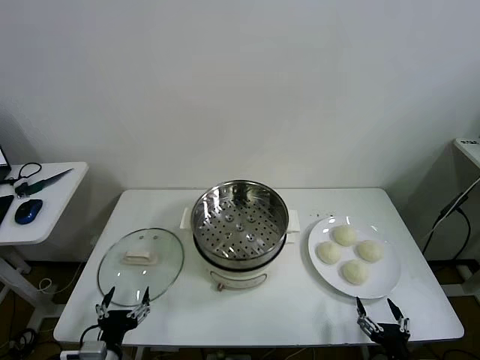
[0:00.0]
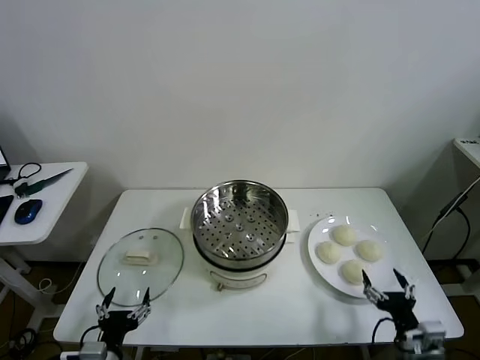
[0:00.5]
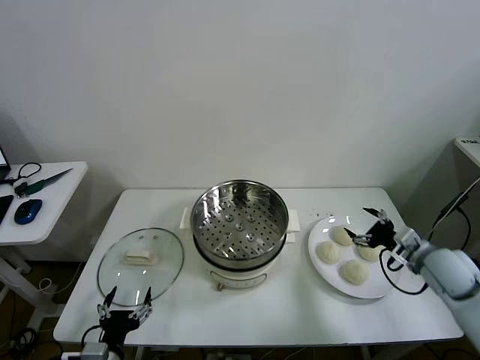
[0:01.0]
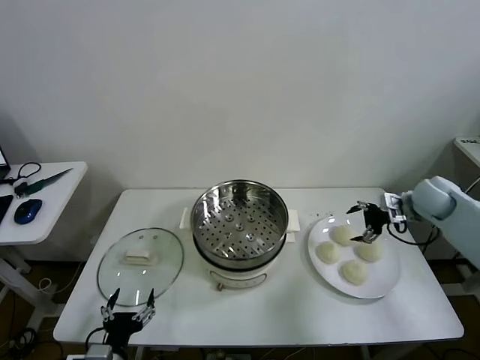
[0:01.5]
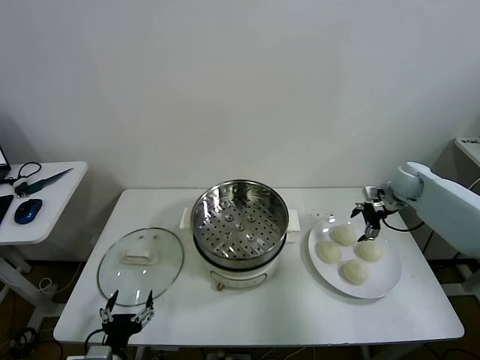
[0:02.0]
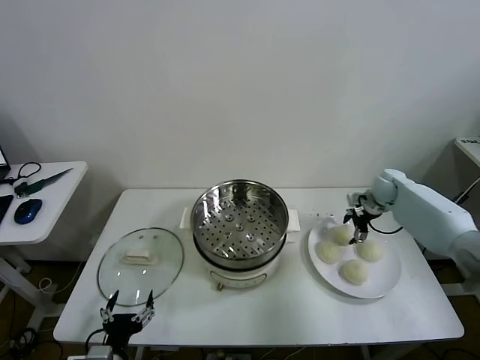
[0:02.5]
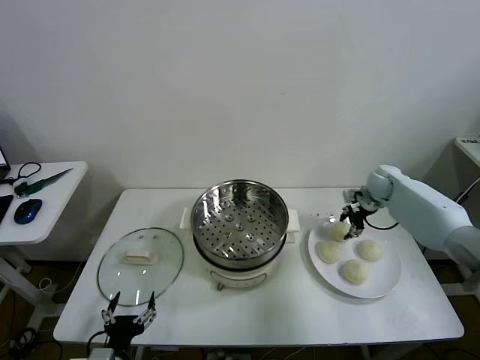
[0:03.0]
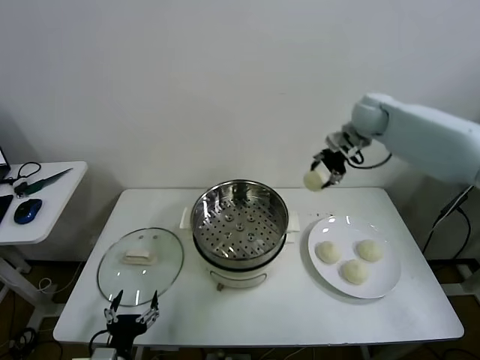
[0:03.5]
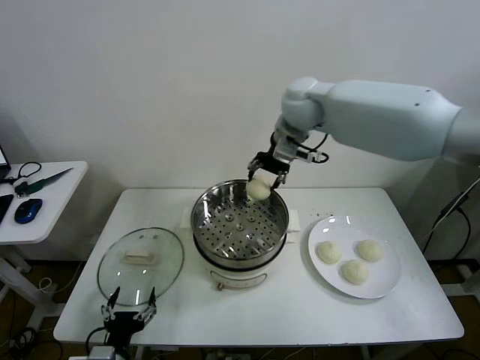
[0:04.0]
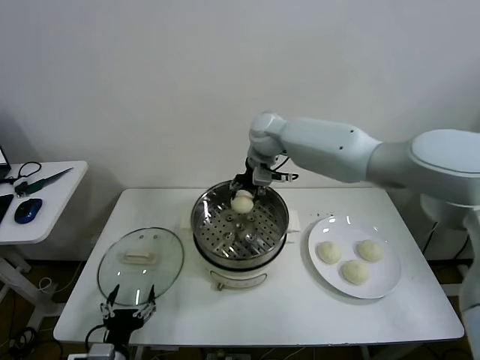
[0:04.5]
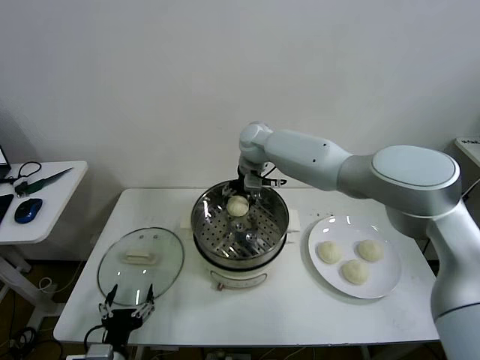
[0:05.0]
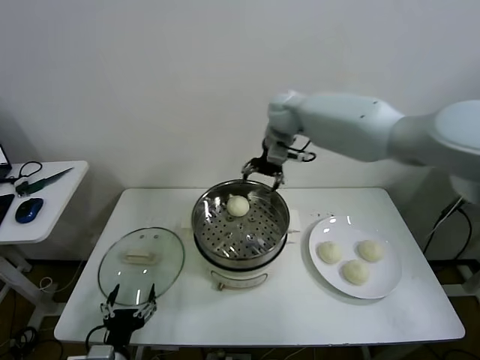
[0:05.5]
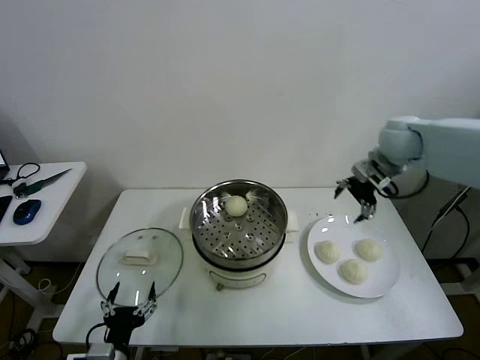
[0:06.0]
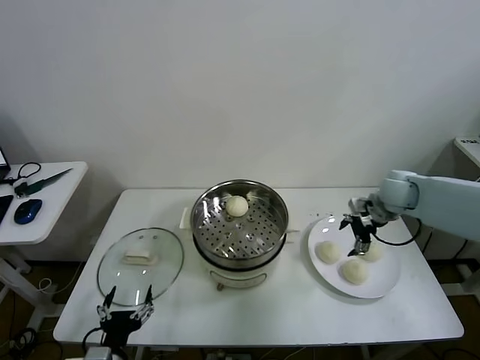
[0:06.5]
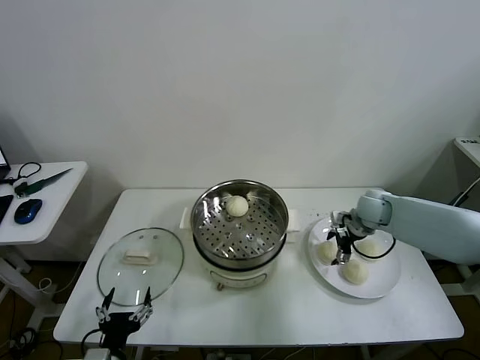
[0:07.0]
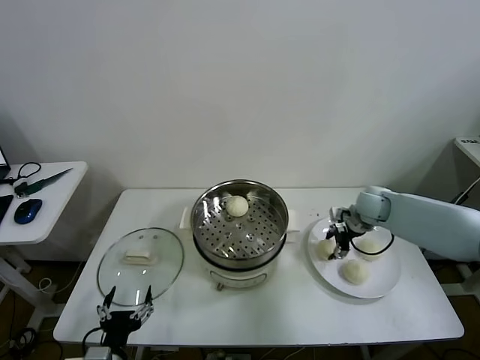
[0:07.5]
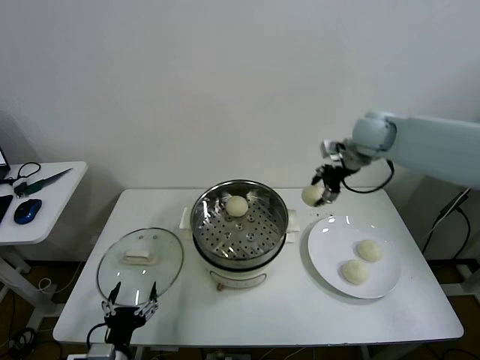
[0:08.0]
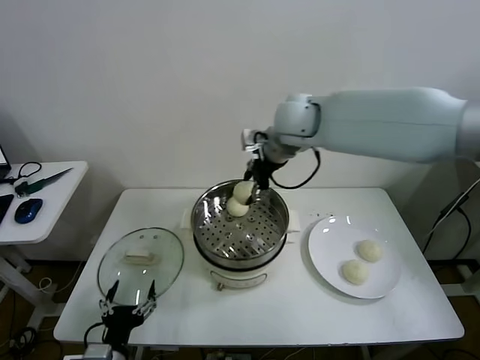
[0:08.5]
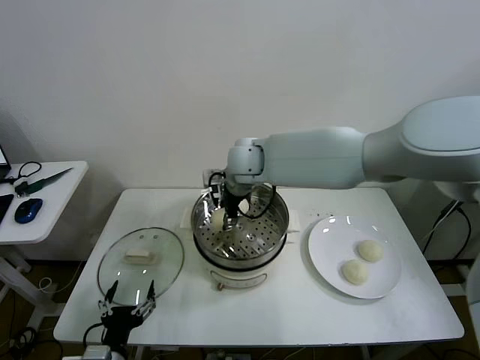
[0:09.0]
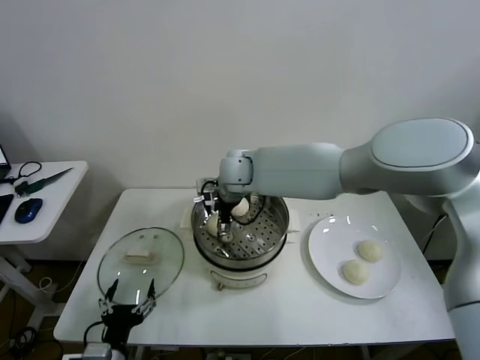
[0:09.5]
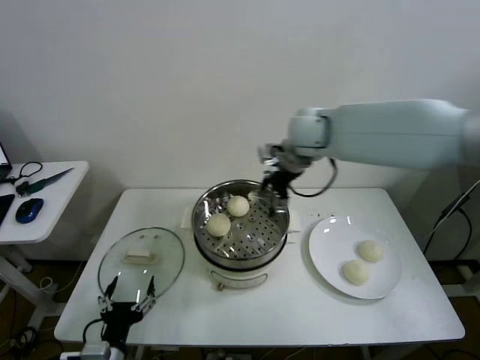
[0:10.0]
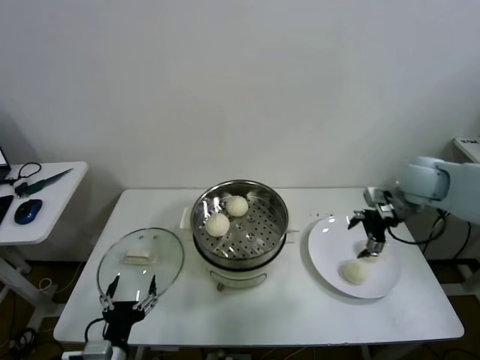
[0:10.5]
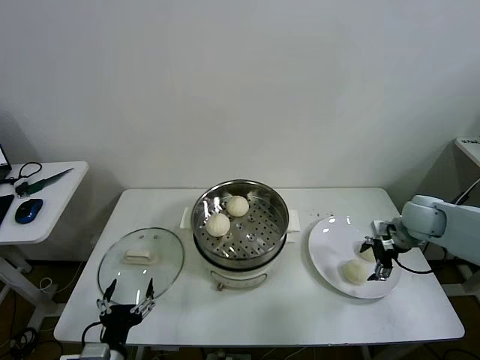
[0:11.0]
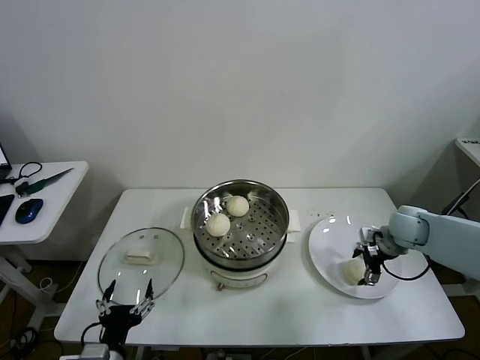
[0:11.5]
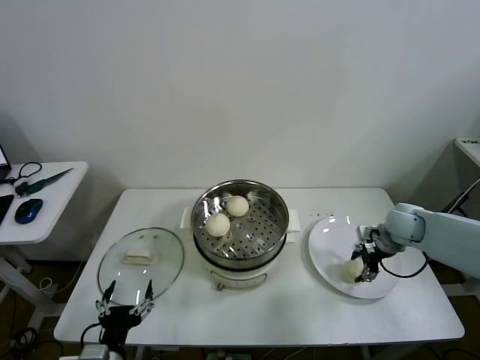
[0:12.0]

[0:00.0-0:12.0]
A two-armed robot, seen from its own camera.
Task of the whole recording: take steamed baozi put them in steamer then cover it.
Step, 0:00.0 to 0:02.5: Grasp the baozi in the plate with right gripper.
Step, 0:03.0 to 0:05.0: Place the baozi on the steamer with right gripper.
Step, 0:05.5 to 0:07.0: Grasp the baozi in the plate with right gripper.
Step, 0:07.5 to 0:09.5: Place the baozi on the steamer with right gripper.
Step, 0:10.0 to 0:12.0: Grasp the baozi in the plate with right gripper.
0:02.0 to 0:04.0: The right gripper heads to the left and upward, covering some 40 cm, and closes its fingers.
0:04.0 to 0:06.0: The right gripper heads to the right, covering about 25 cm, and opens its fingers.
0:06.0 to 0:08.0: The right gripper goes approximately 10 cm to the left, moves some 20 cm downward and comes back, and closes its fingers.
0:08.0 to 0:10.0: The right gripper goes to the left and returns, about 25 cm each way, and opens.
0:10.0 to 0:12.0: The right gripper heads downward and to the right, covering roughly 30 cm, and closes.

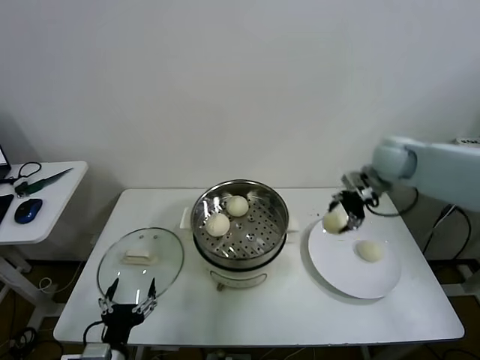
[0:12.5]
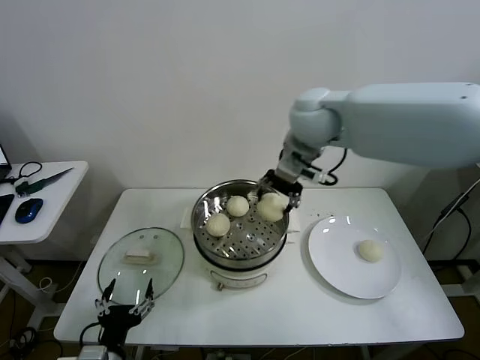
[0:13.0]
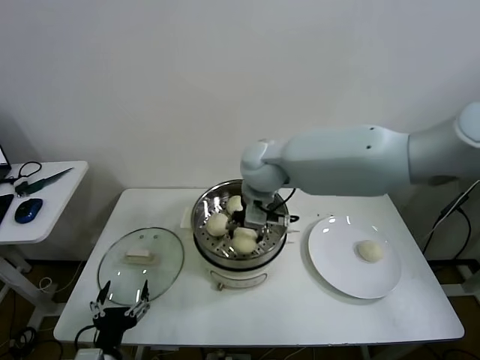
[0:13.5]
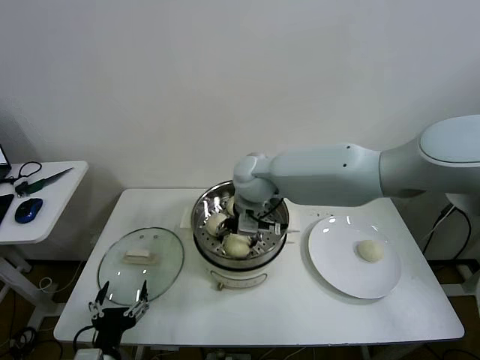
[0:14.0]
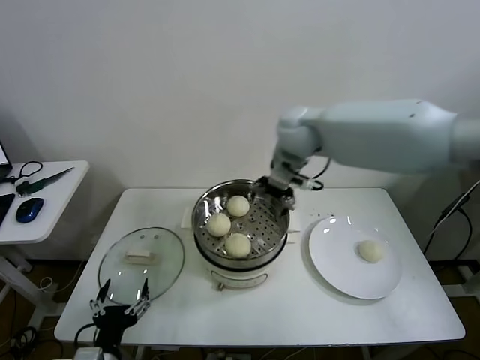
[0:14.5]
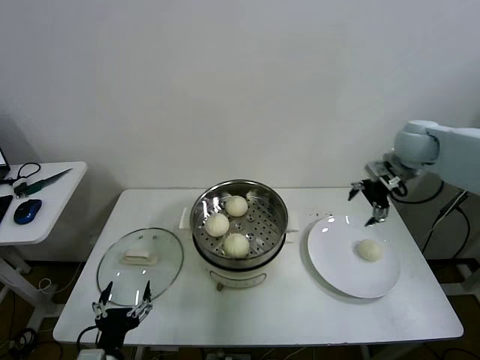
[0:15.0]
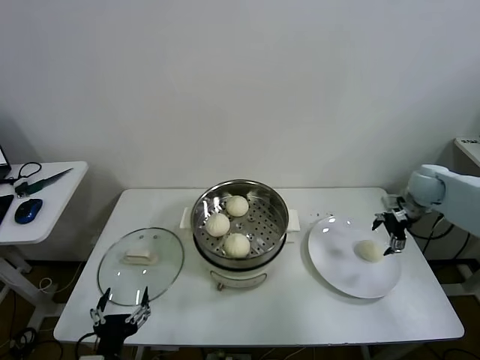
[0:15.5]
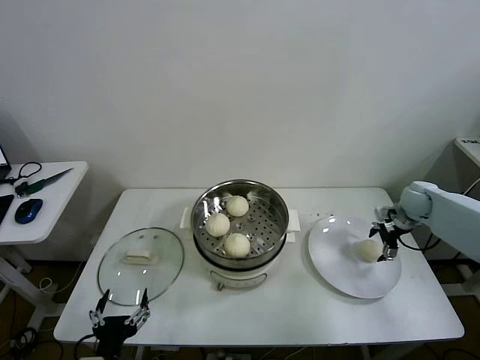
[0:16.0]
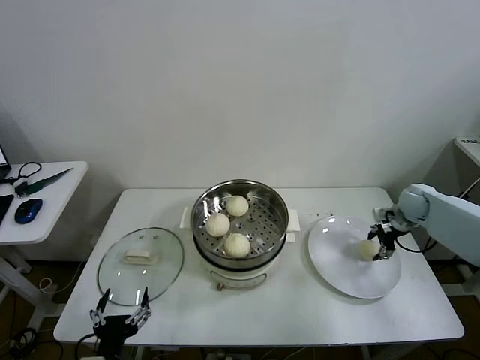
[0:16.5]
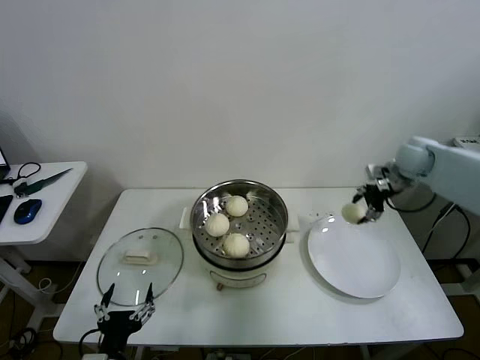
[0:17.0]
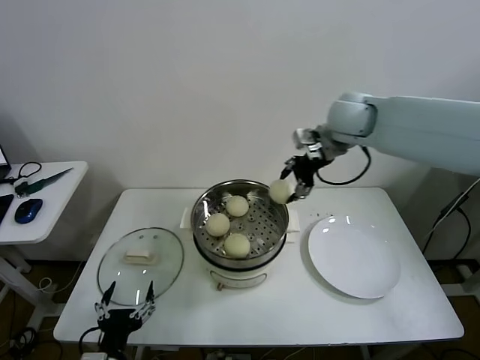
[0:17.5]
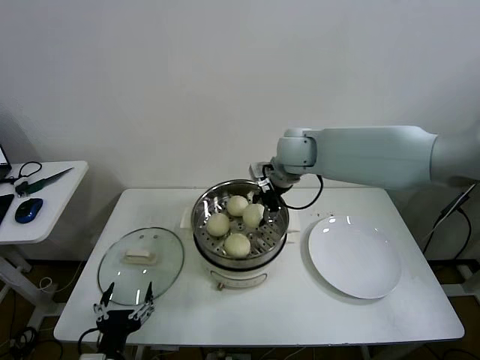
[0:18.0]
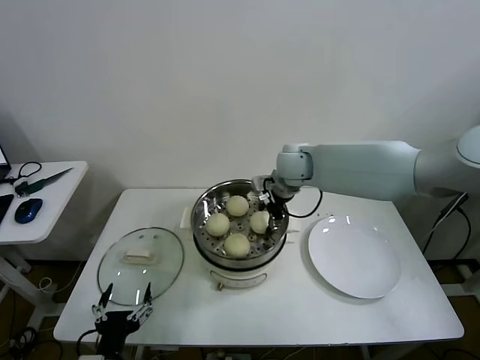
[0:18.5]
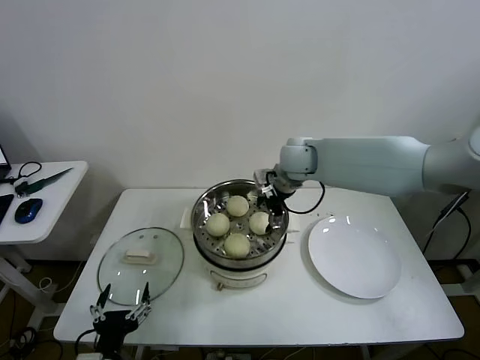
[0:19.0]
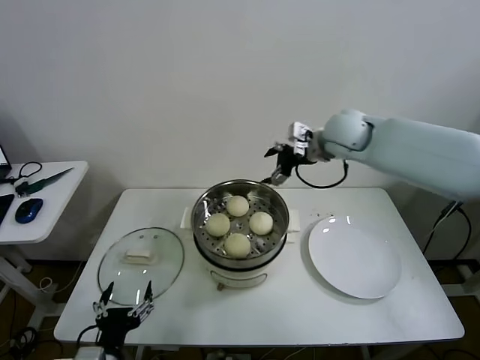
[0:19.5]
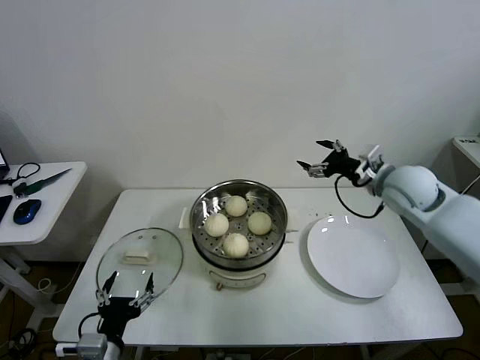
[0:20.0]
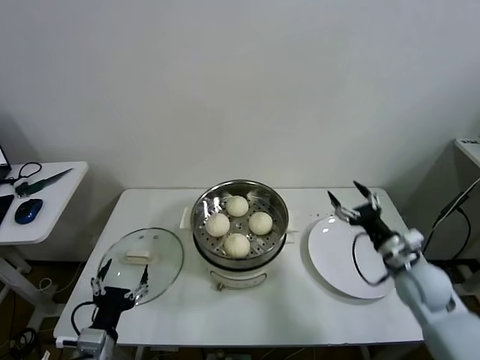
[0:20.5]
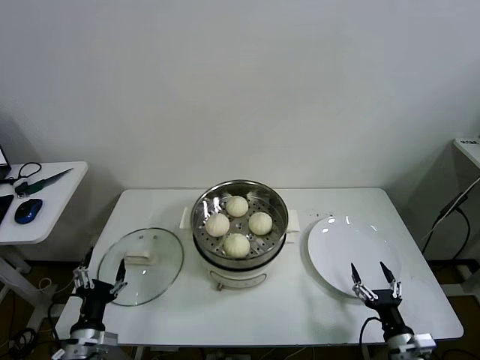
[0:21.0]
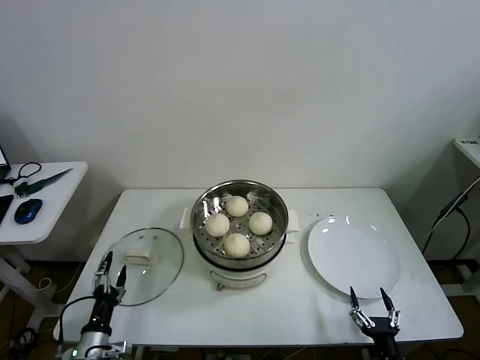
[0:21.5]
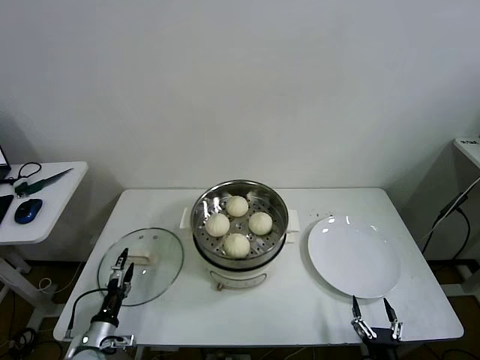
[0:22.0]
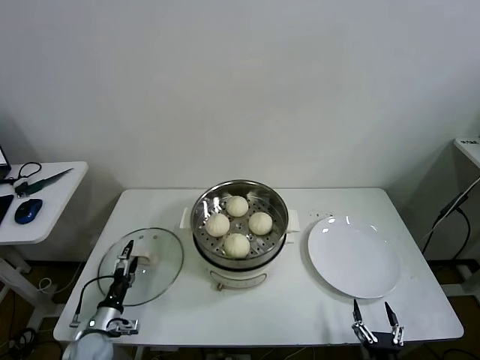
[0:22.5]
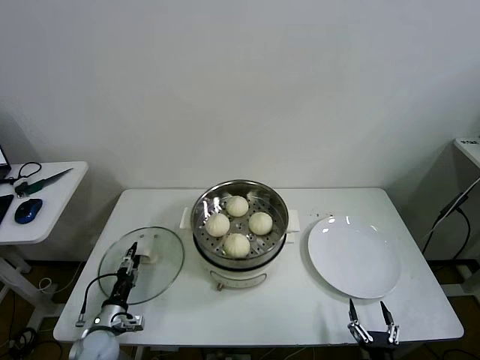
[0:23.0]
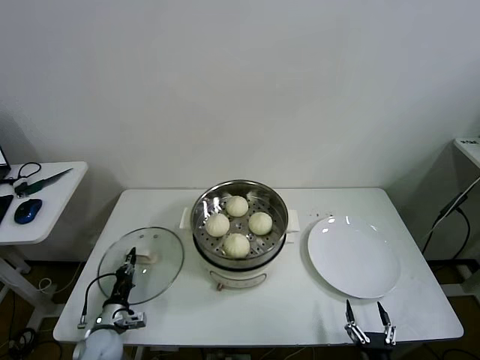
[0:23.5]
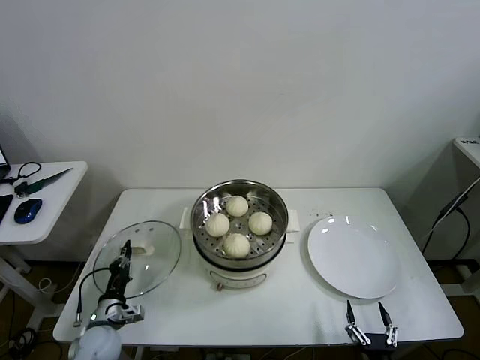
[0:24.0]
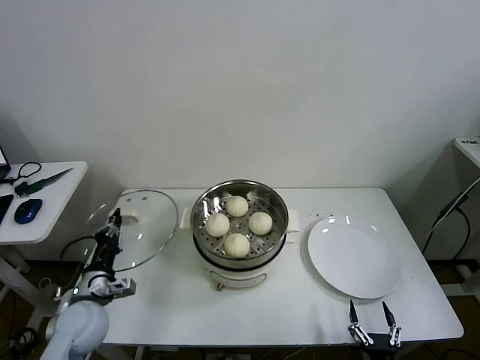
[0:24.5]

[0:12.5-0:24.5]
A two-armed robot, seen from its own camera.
Task of the whole recording: take steamed baozi put them in steamer then cover it.
Step, 0:12.5 to 0:14.0: Place the baozi on the steamer with right gripper.
Step, 0:14.5 to 0:16.5: Grasp the baozi in the plate with right gripper.
Step, 0:17.0 to 0:18.5: Place the baozi on the steamer with right gripper.
Step, 0:19.5 to 0:23.0: Grasp the pot lid with left gripper.
0:12.5 to 0:14.5: The right gripper heads to the left, covering about 15 cm, and opens its fingers.
0:14.5 to 0:16.5: The right gripper heads to the right and downward, covering approximately 40 cm, and closes up.
0:16.5 to 0:18.5: The right gripper shifts some 35 cm to the left.
0:18.5 to 0:20.5: The right gripper moves to the right, backward and downward, about 35 cm, and opens up. Meanwhile the left gripper changes place by about 5 cm.
0:20.5 to 0:22.5: The left gripper moves downward, forward and to the left, roughly 20 cm, while the right gripper moves backward and downward, about 30 cm.
0:22.5 to 0:24.5: The left gripper moves upward, about 15 cm, and closes its fingers.

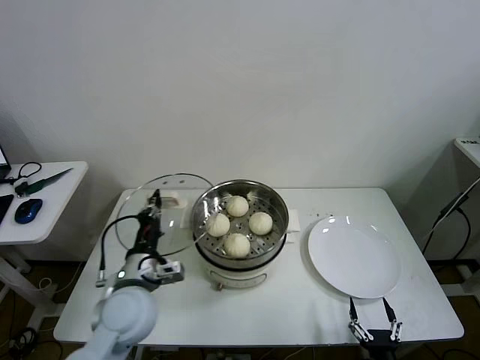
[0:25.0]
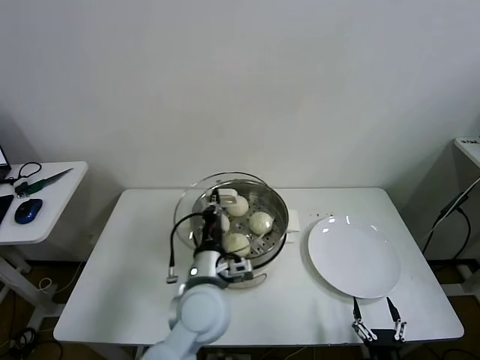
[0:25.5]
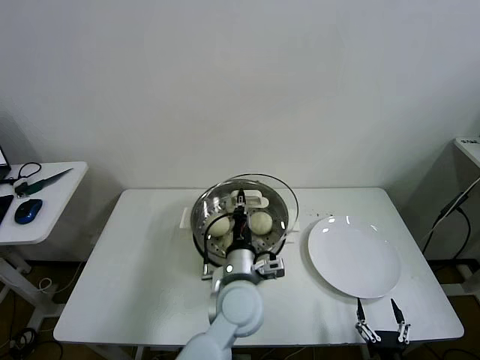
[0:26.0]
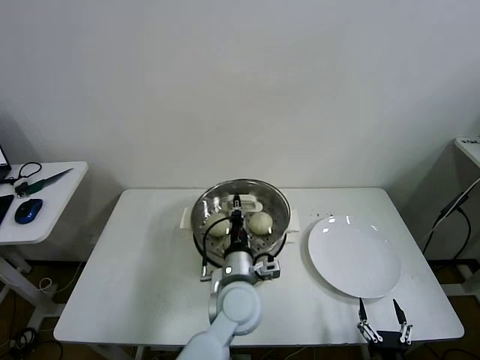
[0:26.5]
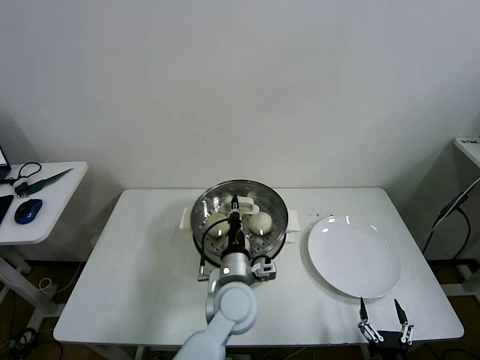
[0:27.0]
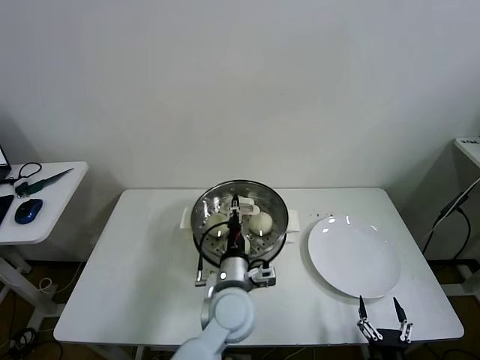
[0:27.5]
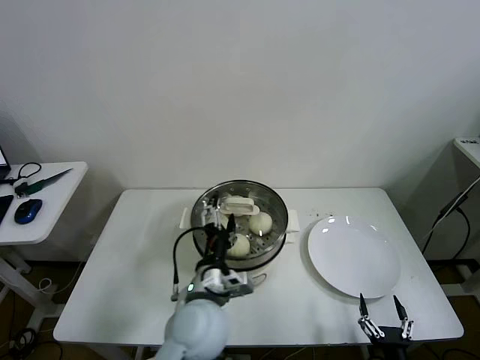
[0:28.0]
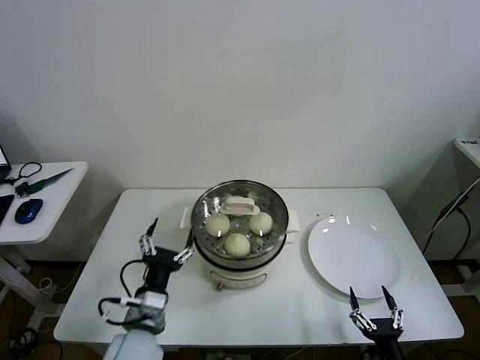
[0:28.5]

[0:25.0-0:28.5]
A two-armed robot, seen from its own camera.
Task of the whole recording: take steamed baozi put them in steamer then cover it.
Step, 0:25.0 to 0:27.0: Place the pot lid on the steamer with left gripper.
0:25.0 to 0:27.0: The left gripper heads to the right, covering some 20 cm.
0:27.0 to 0:28.5: The left gripper is displaced to the left and backward by some 20 cm, and opens up.
